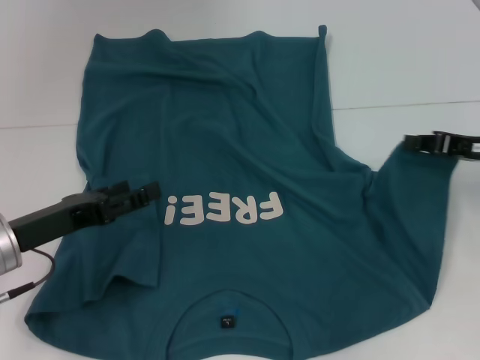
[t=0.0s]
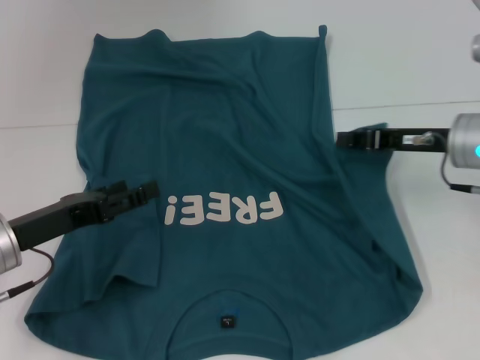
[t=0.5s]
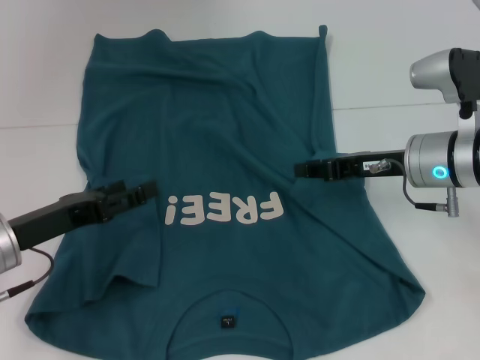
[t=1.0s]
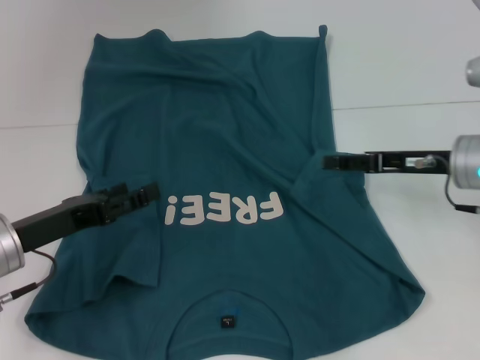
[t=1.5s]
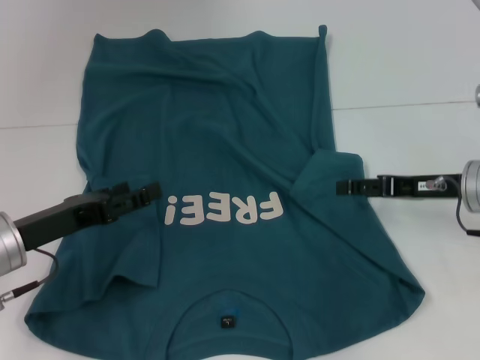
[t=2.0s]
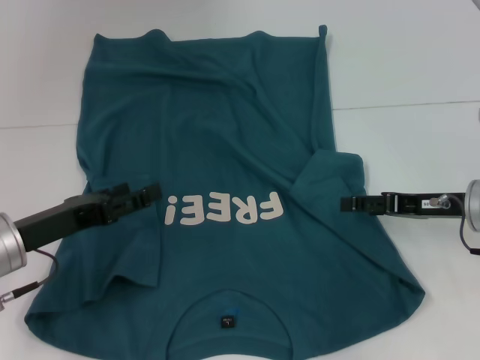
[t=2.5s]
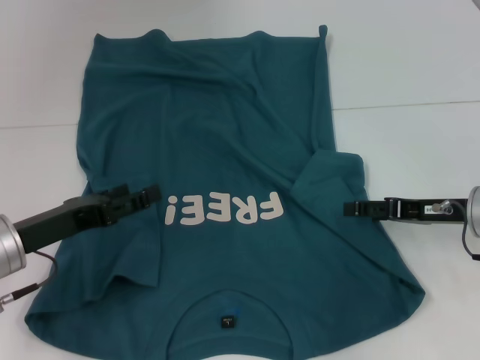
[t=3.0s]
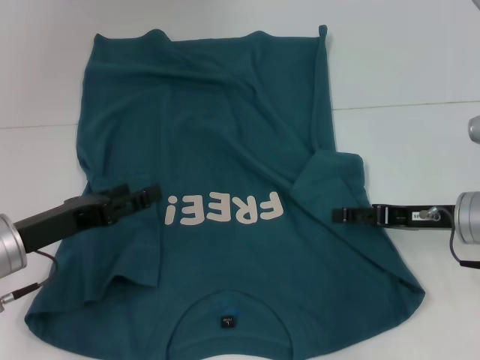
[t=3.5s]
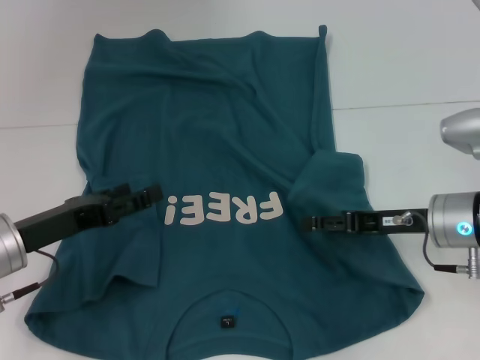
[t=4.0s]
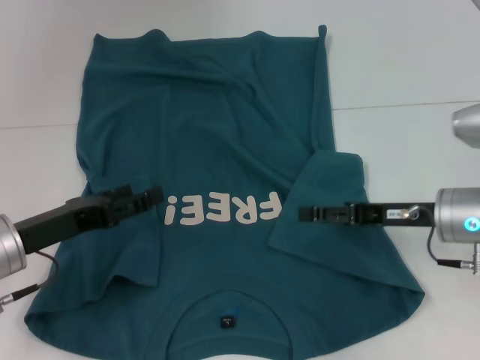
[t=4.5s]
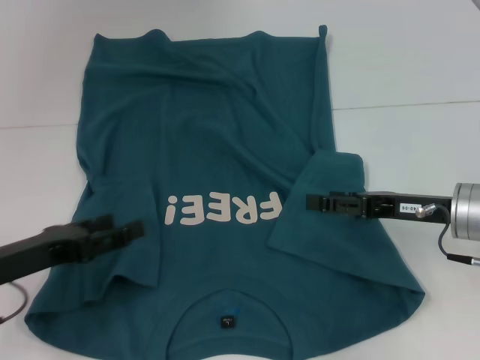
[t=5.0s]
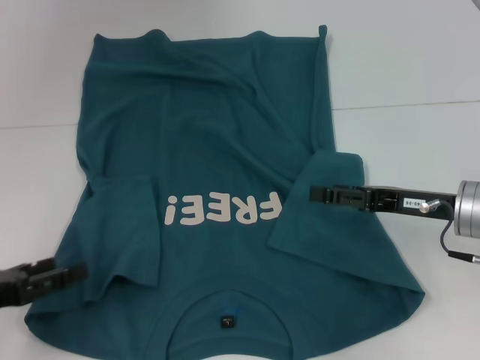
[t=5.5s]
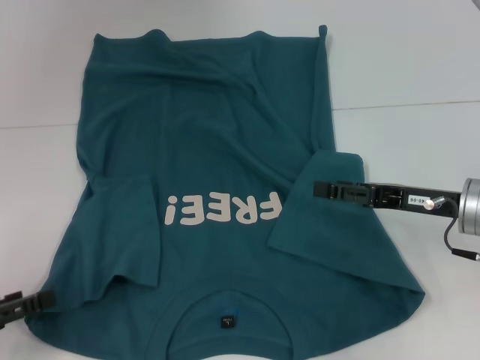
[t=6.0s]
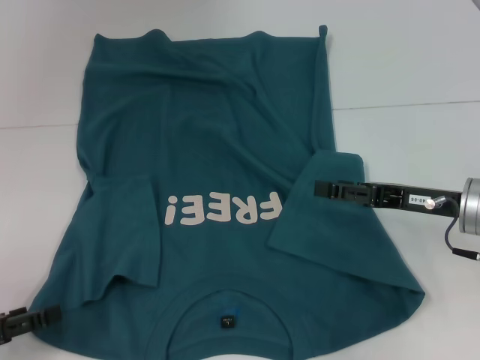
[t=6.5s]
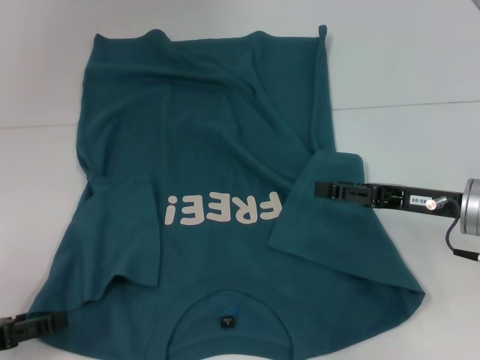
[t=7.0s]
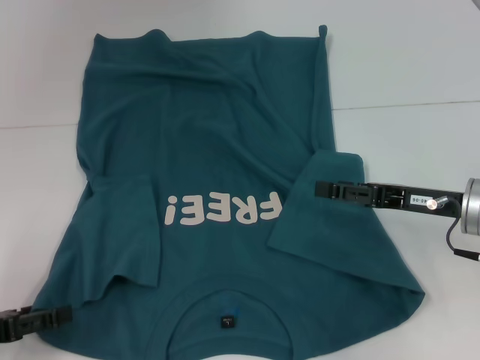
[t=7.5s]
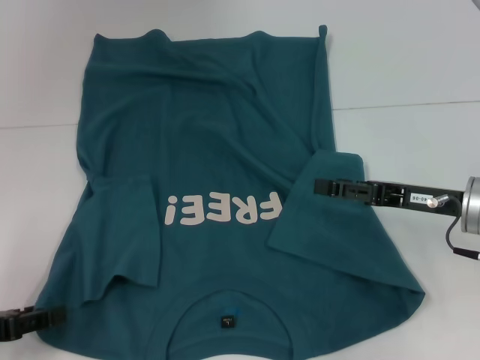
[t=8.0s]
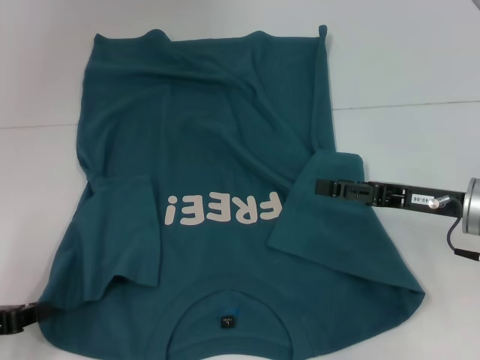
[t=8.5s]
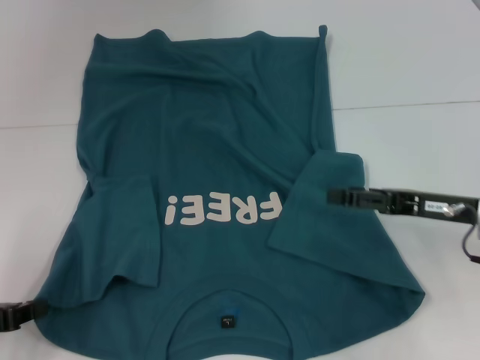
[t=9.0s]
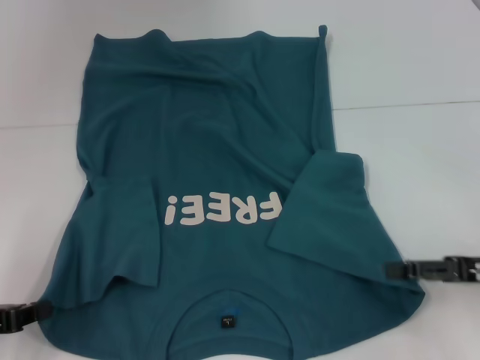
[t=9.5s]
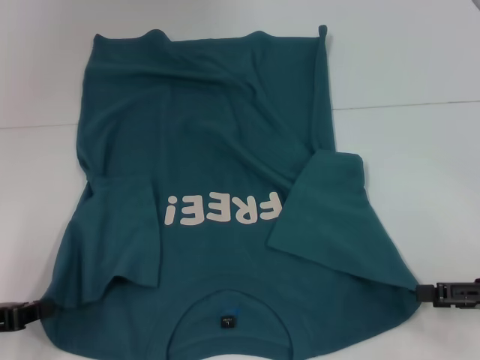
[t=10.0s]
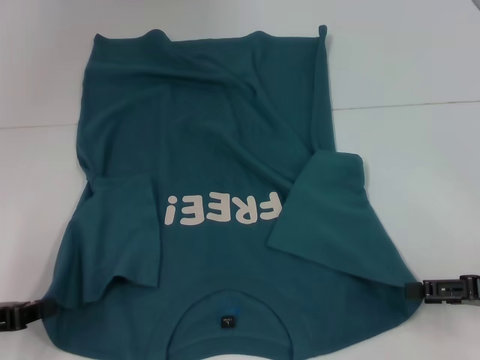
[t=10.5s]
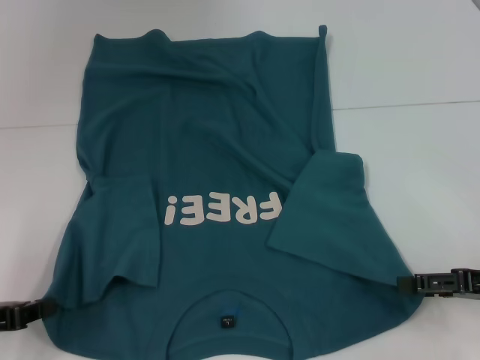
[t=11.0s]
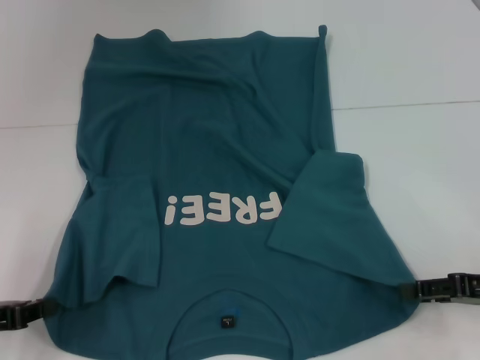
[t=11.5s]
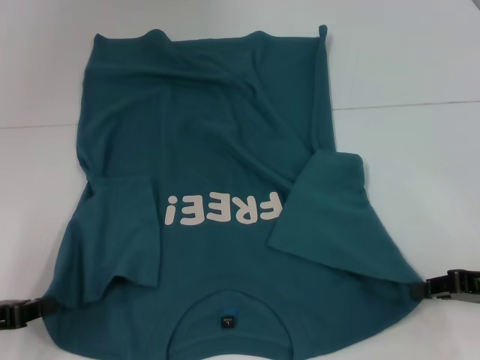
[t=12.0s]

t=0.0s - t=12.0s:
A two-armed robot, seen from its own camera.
Step, t=0.0s - t=4.5s: Fold the bottom right sleeve to the right.
Step, t=5.0s - t=8.5s: Grab the bottom left corner with your left hand.
t=0.0s - t=2.0s: The right gripper opens up.
t=2.0s - t=4.0s: The grippers make only small movements.
t=4.0s - t=6.0s: The left gripper moves to the left and backward, roughly 15 cm.
t=6.0s - t=8.0s: The grippers make only small movements.
t=8.0s - t=10.0s: The left gripper closes up. The right gripper goes roughly 10 cm to the right and backward.
t=10.0s - t=12.0s: The right gripper closes its fingers.

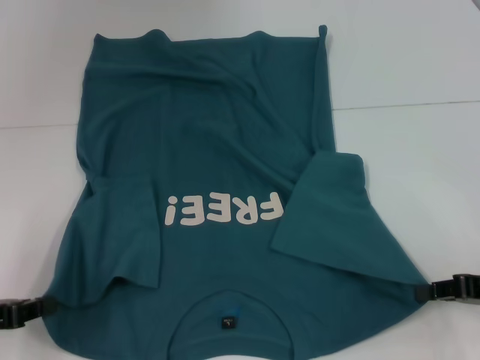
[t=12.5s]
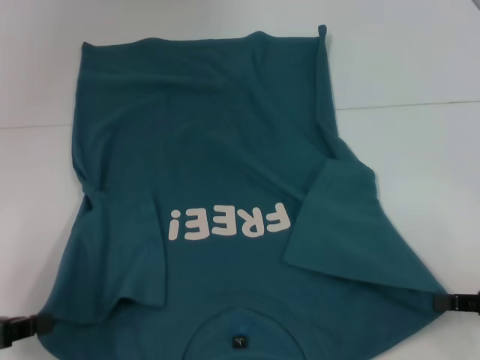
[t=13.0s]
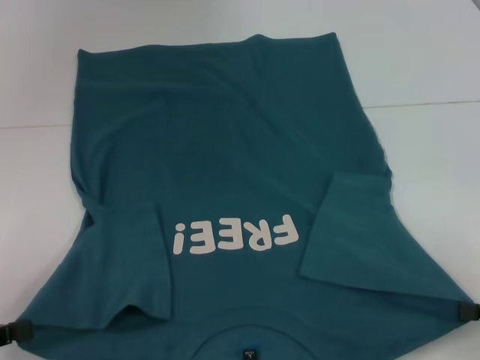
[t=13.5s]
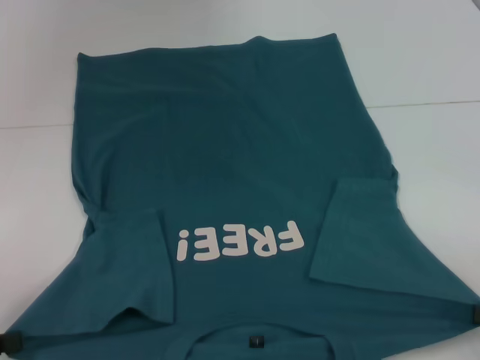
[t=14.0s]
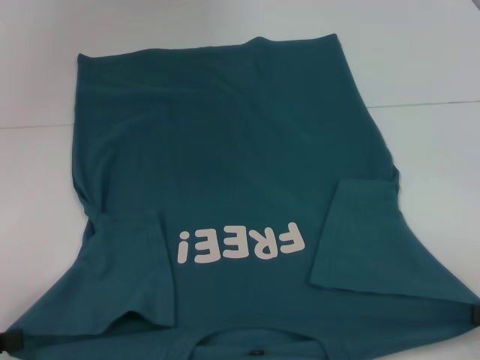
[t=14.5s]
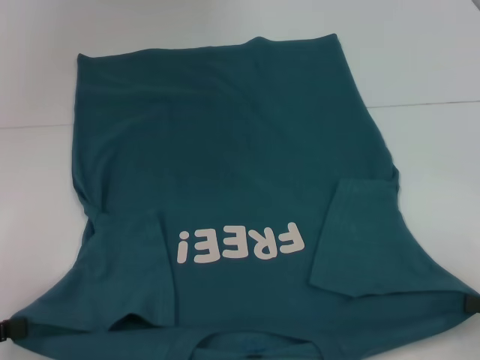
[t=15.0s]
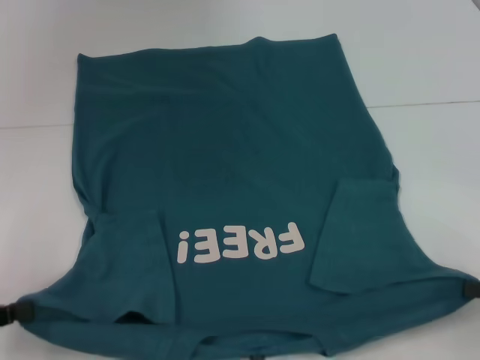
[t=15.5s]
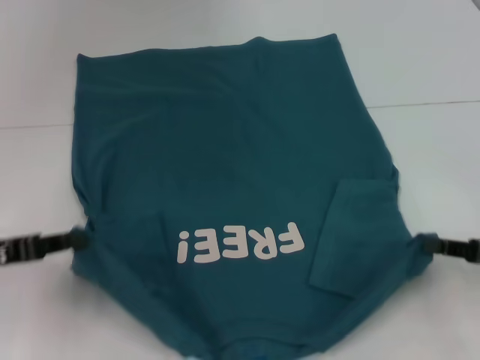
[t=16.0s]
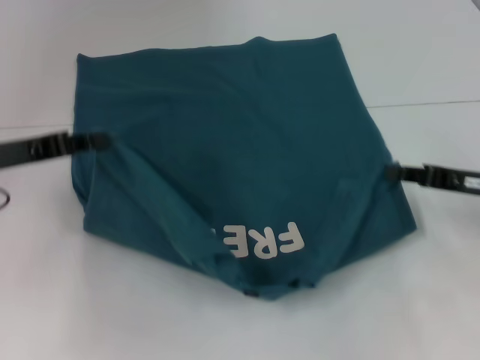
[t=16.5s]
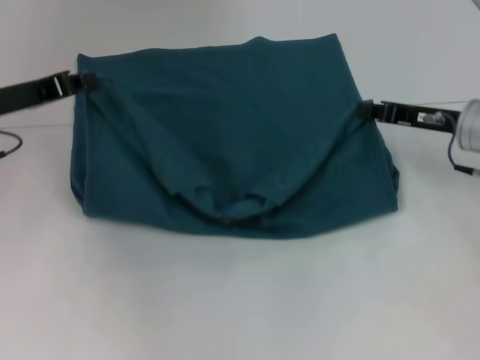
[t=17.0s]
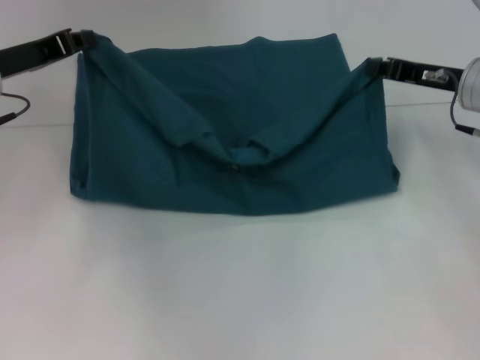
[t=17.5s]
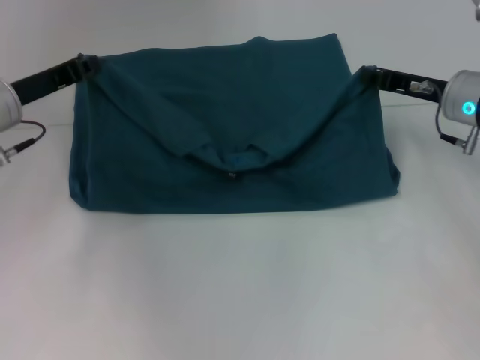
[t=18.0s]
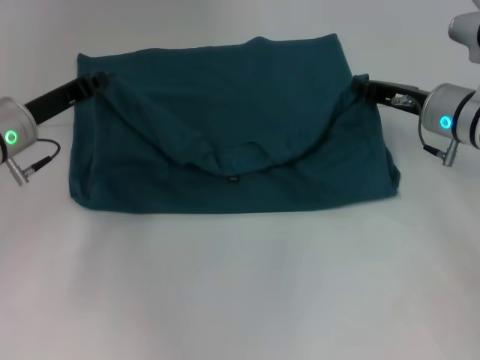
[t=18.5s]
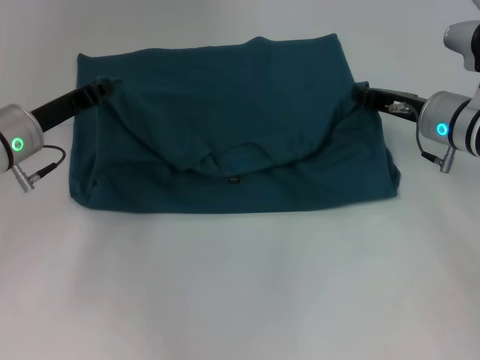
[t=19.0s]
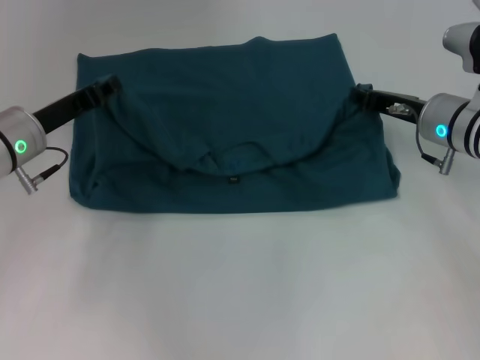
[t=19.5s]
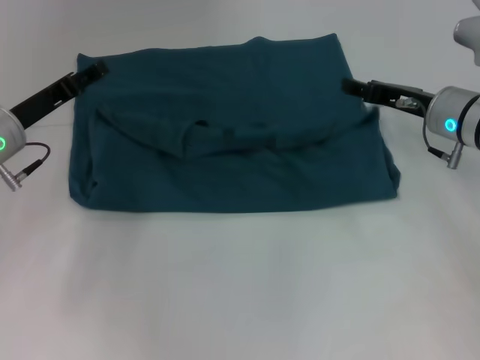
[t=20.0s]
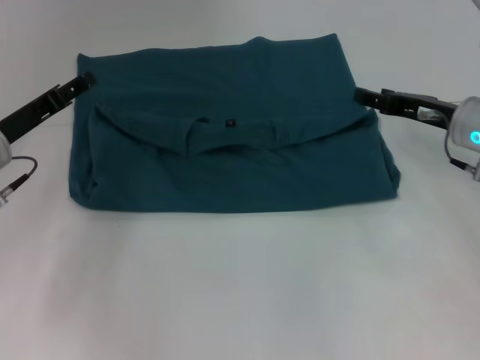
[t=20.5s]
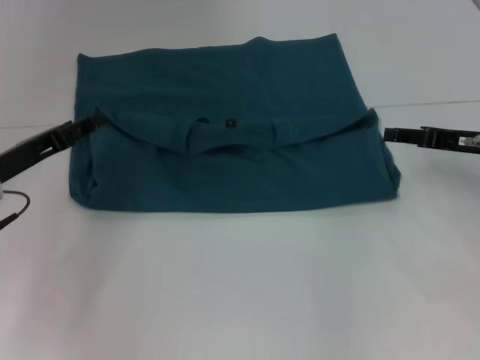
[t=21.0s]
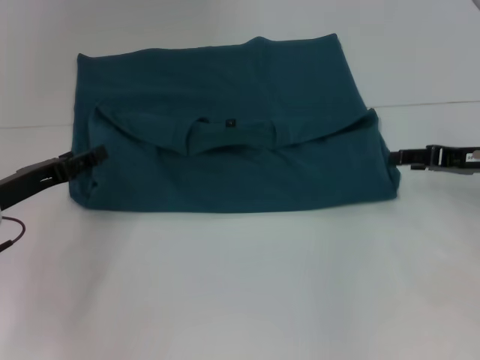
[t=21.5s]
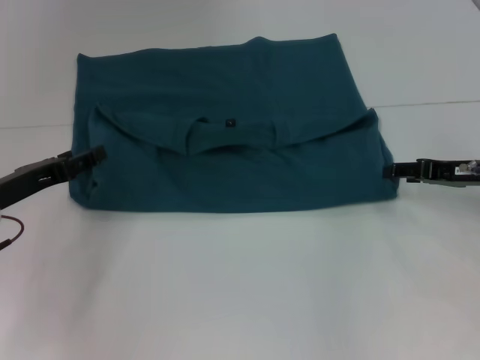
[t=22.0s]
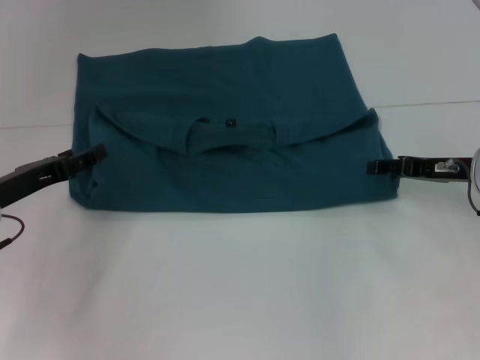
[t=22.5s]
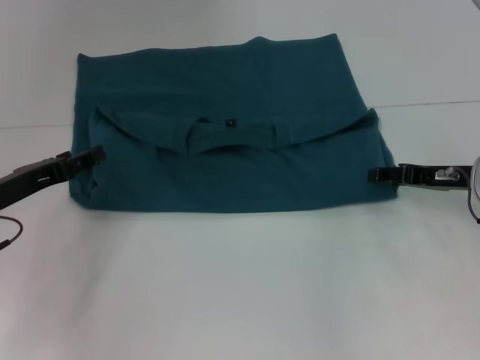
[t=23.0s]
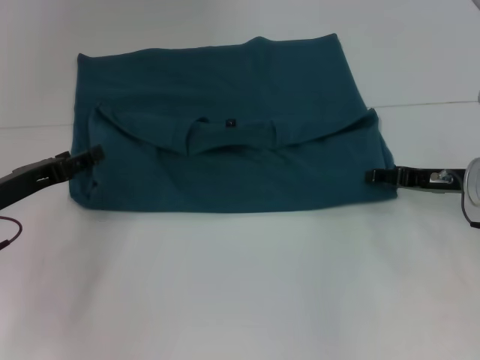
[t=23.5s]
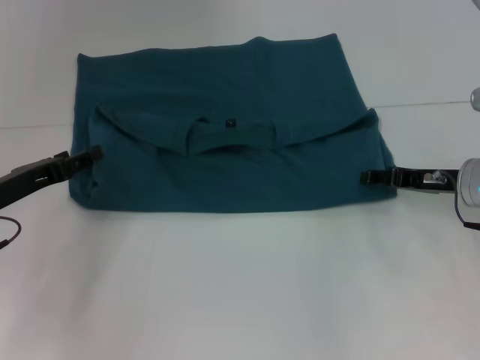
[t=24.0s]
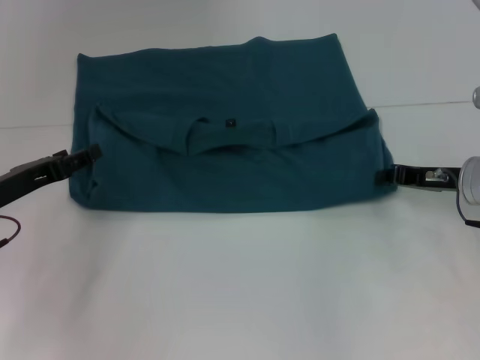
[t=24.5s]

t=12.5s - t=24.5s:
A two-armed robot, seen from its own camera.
Step, t=13.0s - t=20.0s: Fold the clothes to the left.
Step, t=13.0s - t=20.0s: Fold the clothes to the right.
t=12.5s - t=14.5s: The right gripper goes about 10 cm backward, while the left gripper shifts by roughly 5 cm.
t=14.5s - t=16.5s: The right gripper travels forward and to the left by approximately 15 cm; the left gripper shifts some 20 cm forward and to the right.
t=16.5s - t=18.5s: The right gripper heads forward and to the left, covering some 10 cm. The left gripper moves forward, approximately 5 cm.
t=18.5s - t=20.5s: The right gripper opens. The left gripper opens.
t=20.5s - t=22.5s: The left gripper moves approximately 5 cm.
t=22.5s - t=24.5s: The right gripper closes up.

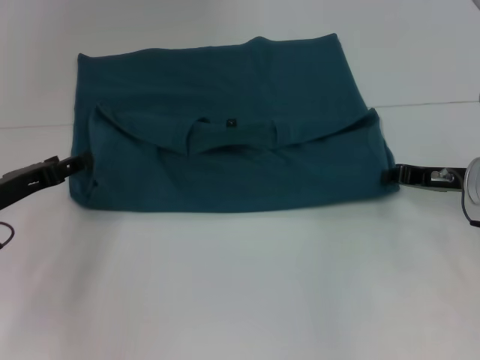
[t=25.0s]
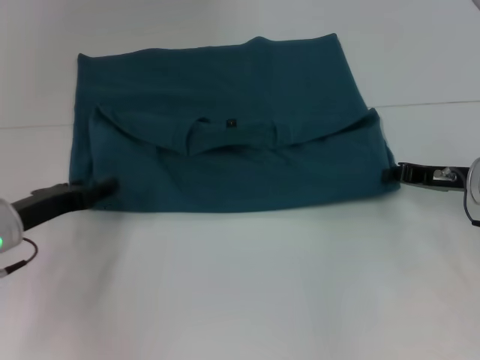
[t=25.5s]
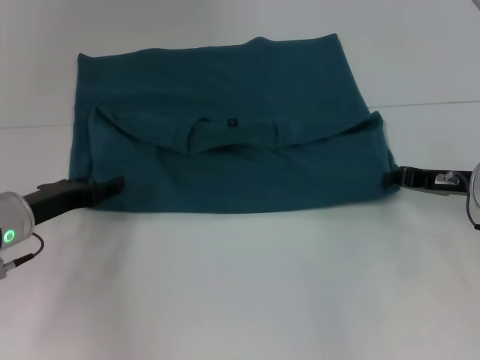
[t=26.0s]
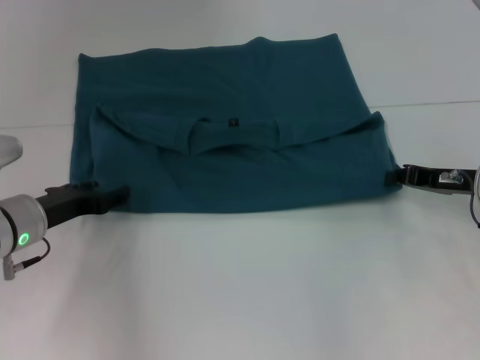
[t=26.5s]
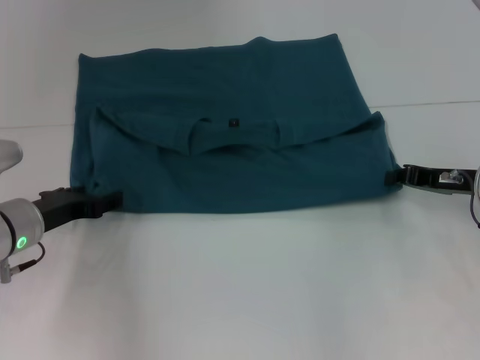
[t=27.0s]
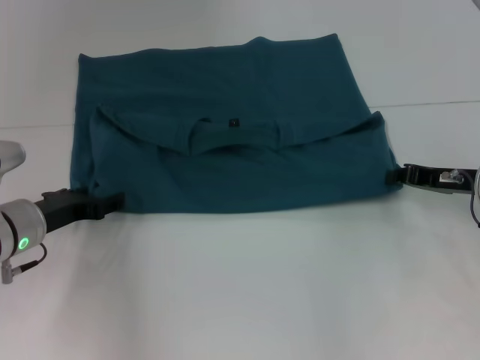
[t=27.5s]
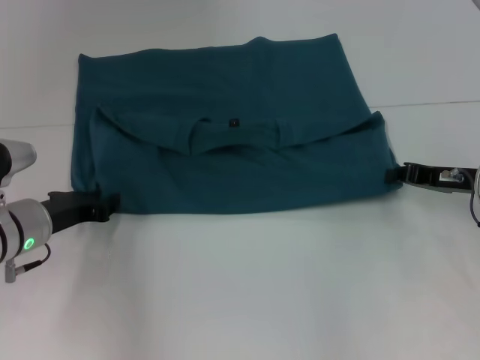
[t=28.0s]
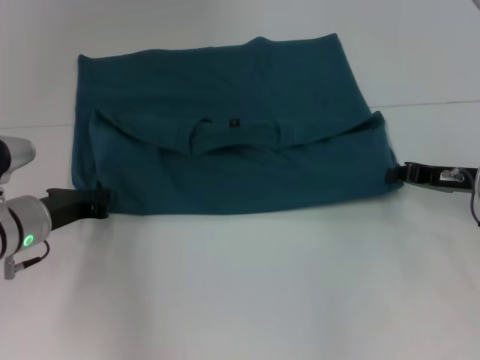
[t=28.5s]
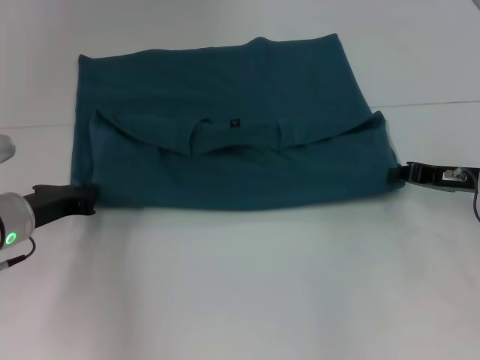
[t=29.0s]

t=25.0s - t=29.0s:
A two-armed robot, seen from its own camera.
t=25.0s - t=27.0s: The left gripper shifts by approximately 5 cm.
t=27.0s - t=29.0s: The left gripper closes.
